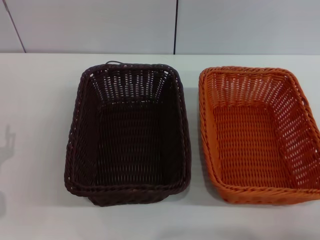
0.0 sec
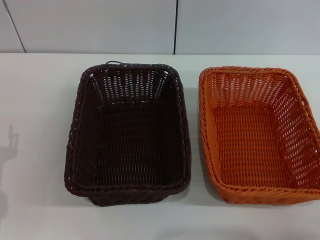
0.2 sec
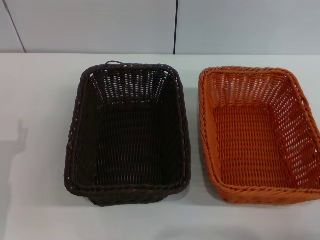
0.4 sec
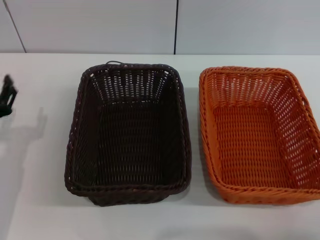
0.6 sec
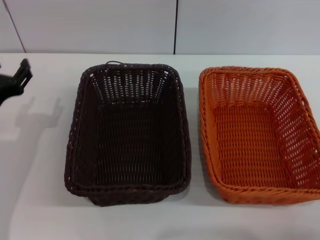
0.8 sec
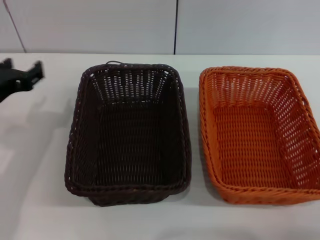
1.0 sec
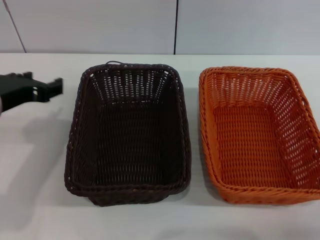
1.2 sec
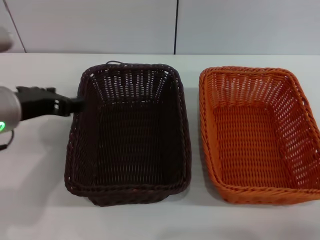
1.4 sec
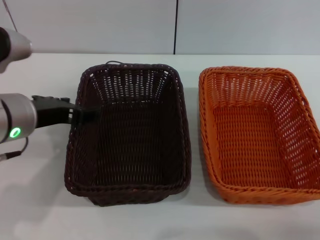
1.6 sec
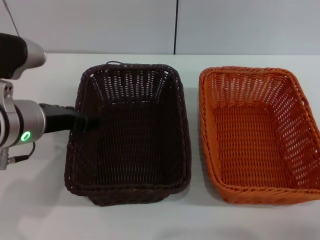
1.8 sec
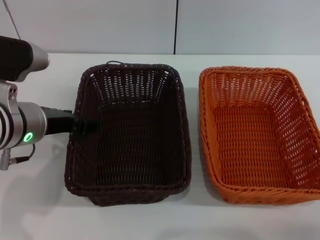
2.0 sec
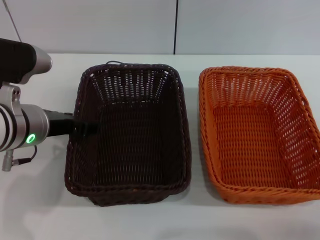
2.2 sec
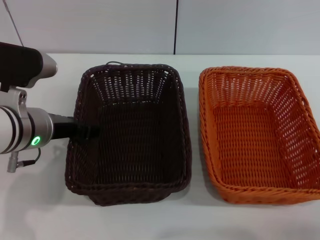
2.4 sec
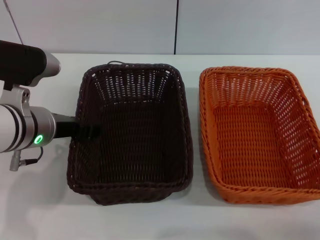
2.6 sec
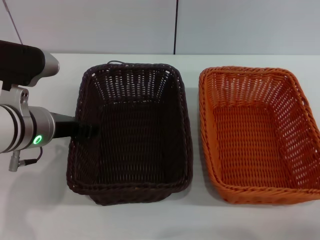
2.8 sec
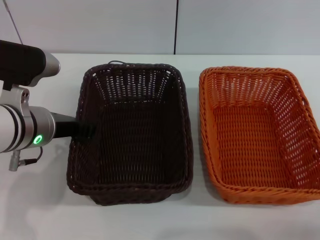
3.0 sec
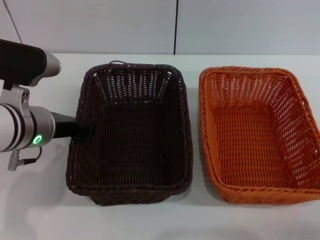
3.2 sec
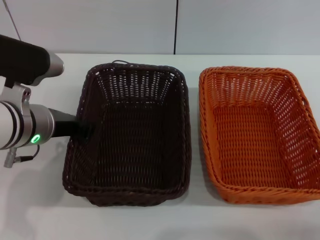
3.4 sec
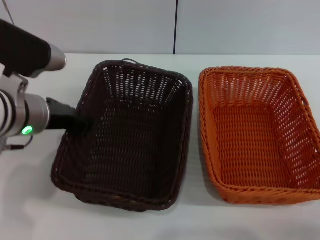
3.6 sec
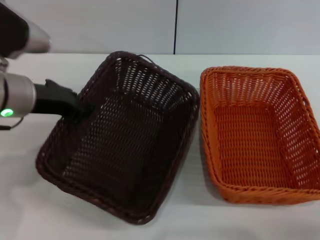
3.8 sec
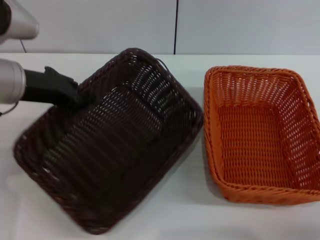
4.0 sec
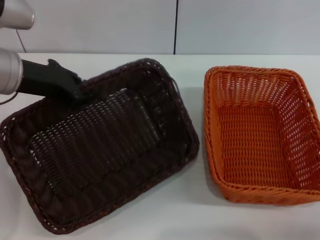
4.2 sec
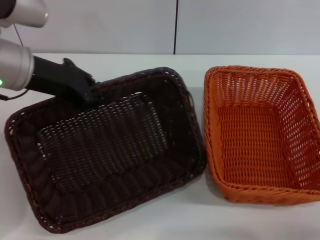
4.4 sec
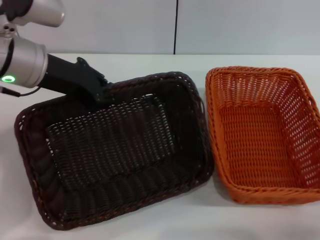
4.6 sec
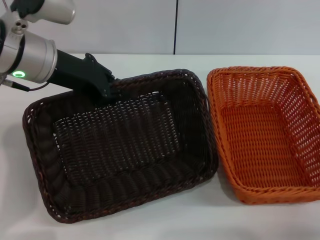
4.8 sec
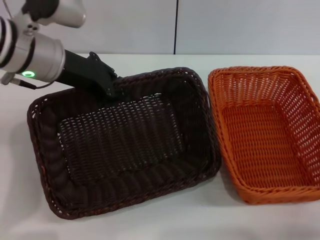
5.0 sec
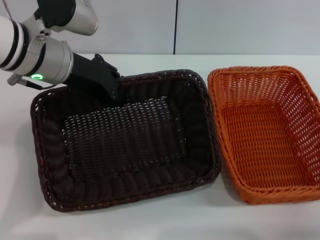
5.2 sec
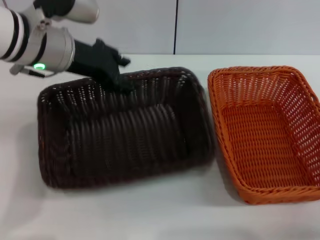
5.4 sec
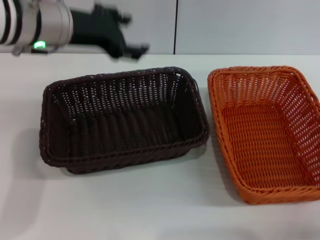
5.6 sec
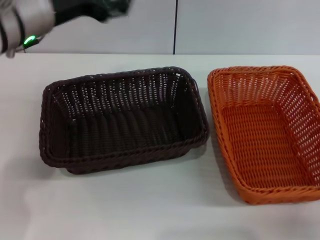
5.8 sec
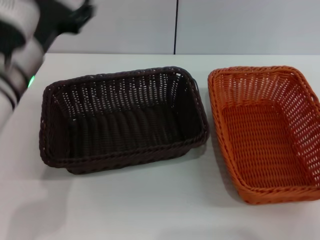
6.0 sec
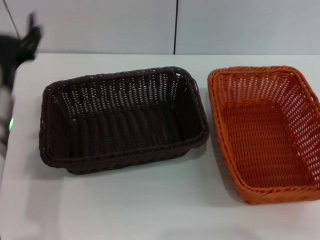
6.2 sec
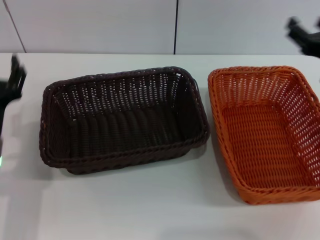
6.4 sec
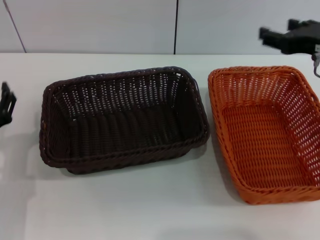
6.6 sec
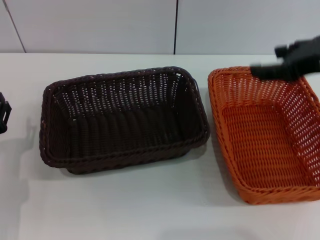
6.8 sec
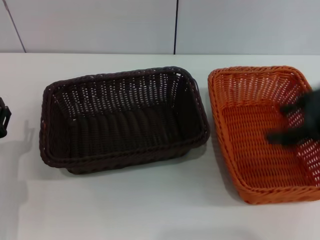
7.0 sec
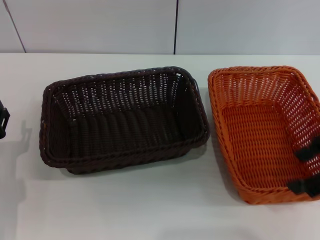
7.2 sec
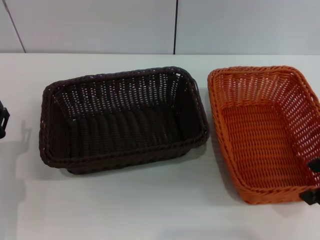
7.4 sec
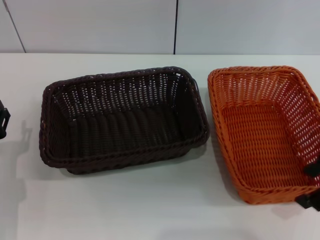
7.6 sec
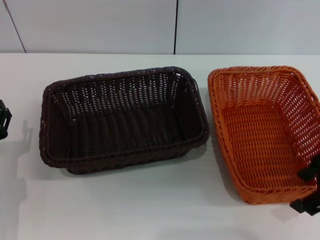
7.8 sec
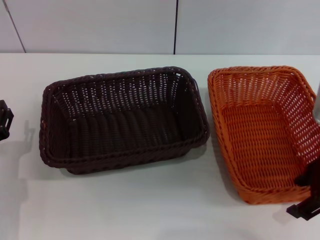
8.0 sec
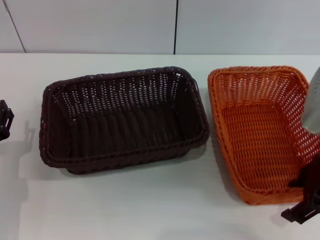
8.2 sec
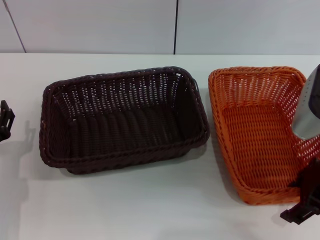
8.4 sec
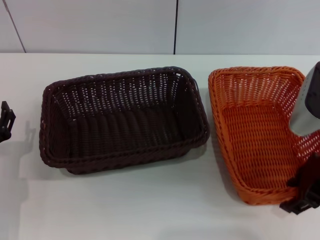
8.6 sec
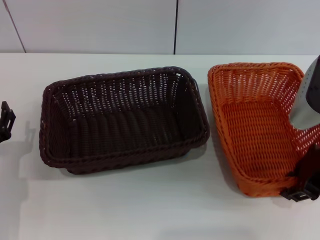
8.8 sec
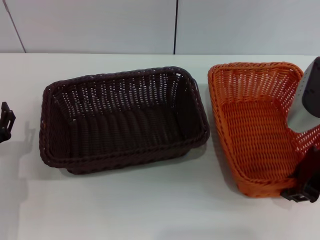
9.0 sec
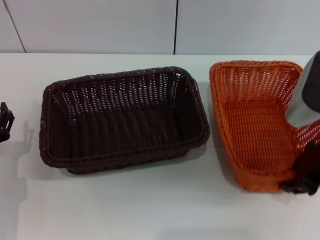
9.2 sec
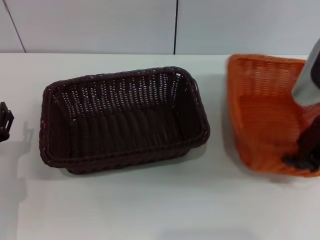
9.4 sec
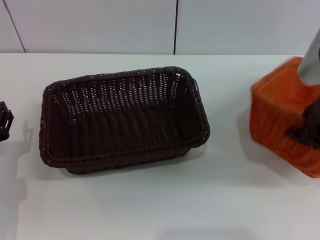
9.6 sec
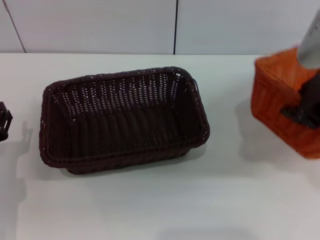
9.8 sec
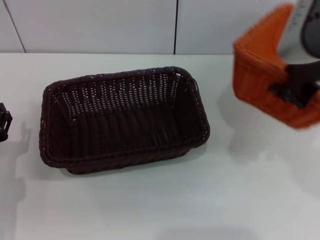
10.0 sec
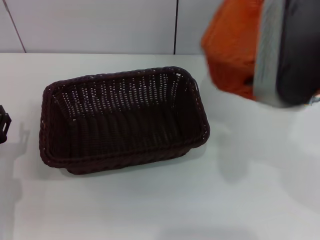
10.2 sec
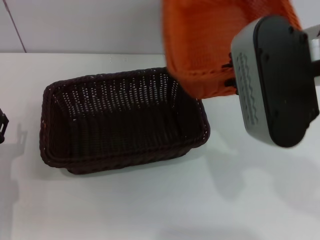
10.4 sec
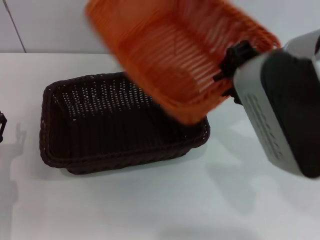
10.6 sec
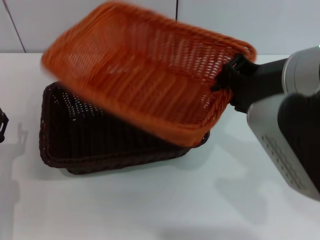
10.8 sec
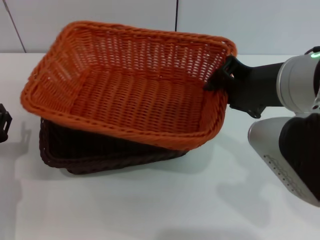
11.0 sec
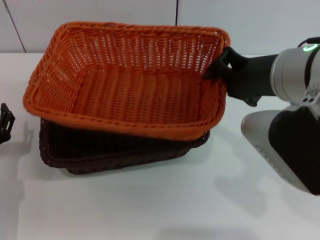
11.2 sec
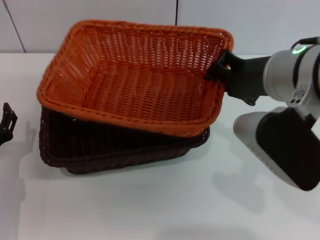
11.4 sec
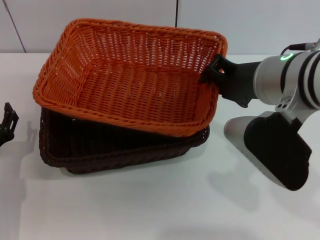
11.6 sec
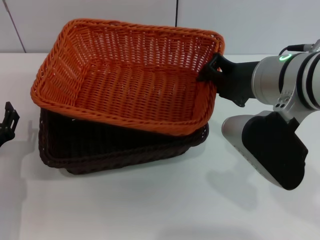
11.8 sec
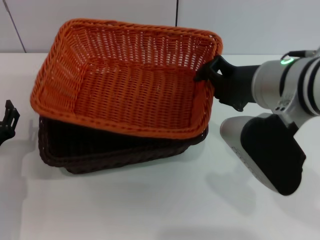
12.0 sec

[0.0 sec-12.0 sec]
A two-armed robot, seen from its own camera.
Step, 0.0 sec to 4.2 sec: Pick up the dark basket with the left gripper.
Step, 4.4 sec to 5.4 sec: Place the dark basket in the center of view with the left gripper.
Step, 5.6 sec to 10.0 sec: Pick up the light basket with the right gripper.
0.0 sec to 1.6 sec: The left gripper heads upward and to the right, covering approximately 20 cm.
1.6 sec to 3.0 sec: The grippers stay close to where they were, moving slightly.
3.0 sec to 4.4 sec: The left gripper moves upward, about 10 cm, and closes its fingers.
4.4 sec to 6.0 sec: The left gripper changes place by approximately 5 cm, and opens. The right gripper changes place by approximately 5 cm.
6.0 sec to 7.6 sec: The right gripper moves upward, approximately 15 cm. Meanwhile the left gripper heads downward, to the left and backward, covering approximately 20 cm.
7.6 sec to 9.0 sec: The right gripper goes roughly 5 cm downward, and closes its fingers.
9.0 sec to 10.4 sec: The right gripper shifts approximately 15 cm upward and to the left.
10.4 sec to 12.0 sec: The right gripper shifts approximately 5 cm downward.

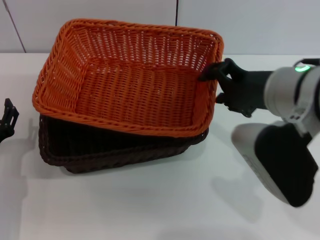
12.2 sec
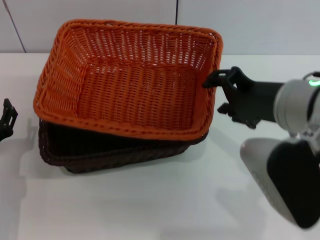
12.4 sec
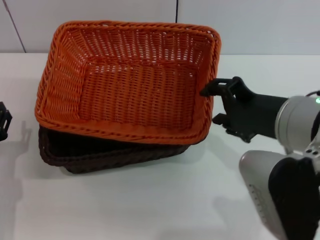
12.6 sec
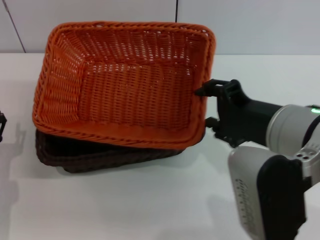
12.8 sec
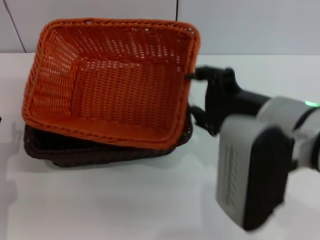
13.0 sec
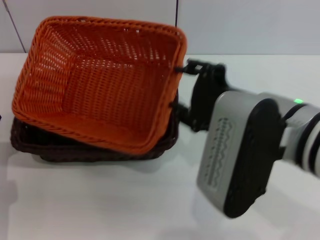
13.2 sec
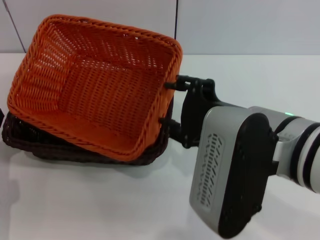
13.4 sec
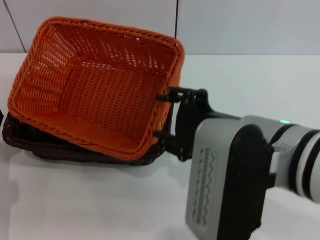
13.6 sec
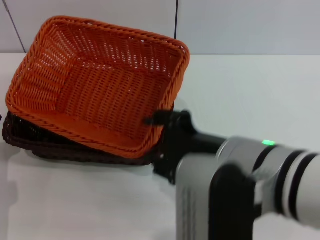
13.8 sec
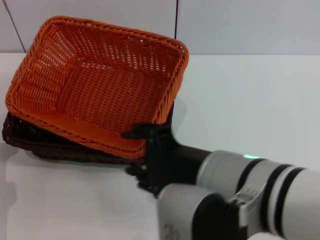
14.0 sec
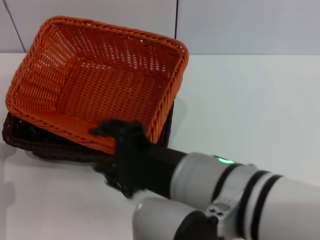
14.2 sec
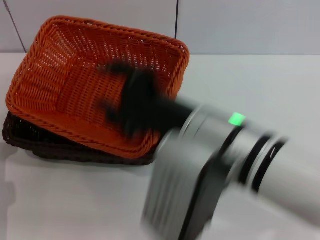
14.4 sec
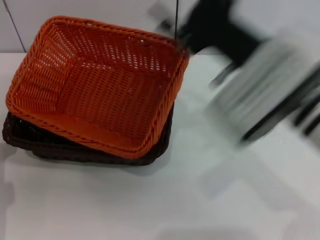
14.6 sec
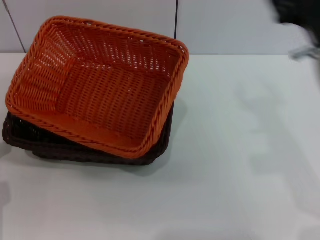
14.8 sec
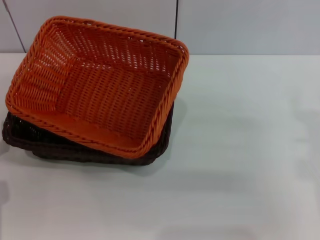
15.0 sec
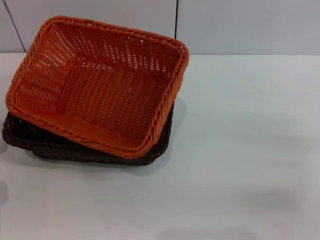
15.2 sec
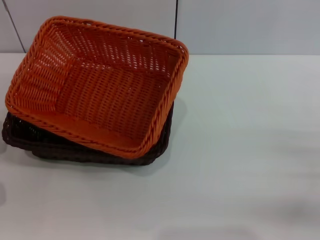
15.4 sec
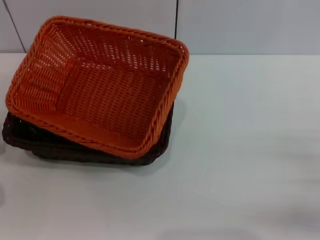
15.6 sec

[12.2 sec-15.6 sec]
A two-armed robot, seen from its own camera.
12.2 sec to 13.8 sec: The right gripper travels backward and to the left by approximately 10 cm, and opens up.
13.8 sec to 15.6 sec: The right gripper heads to the right and downward, covering approximately 30 cm.
